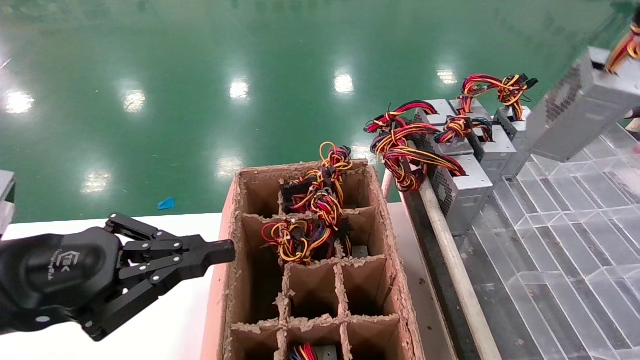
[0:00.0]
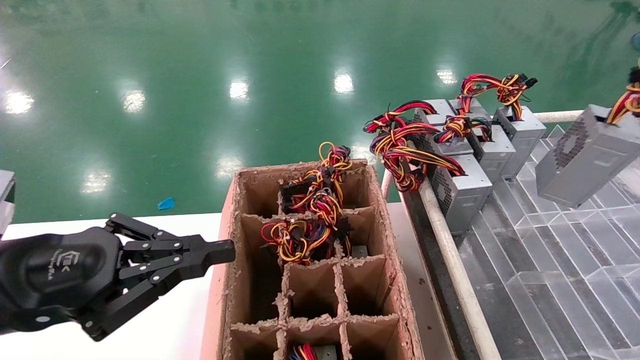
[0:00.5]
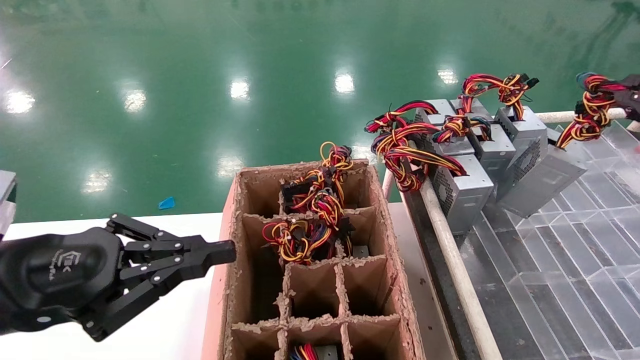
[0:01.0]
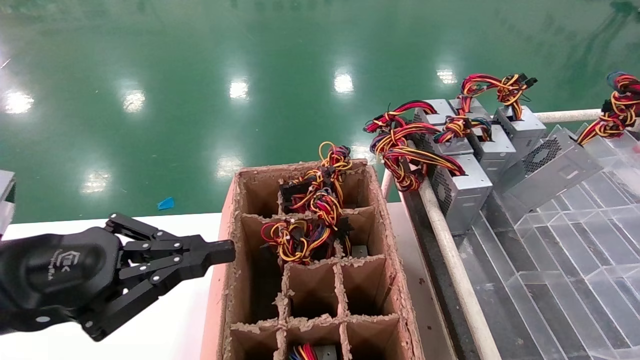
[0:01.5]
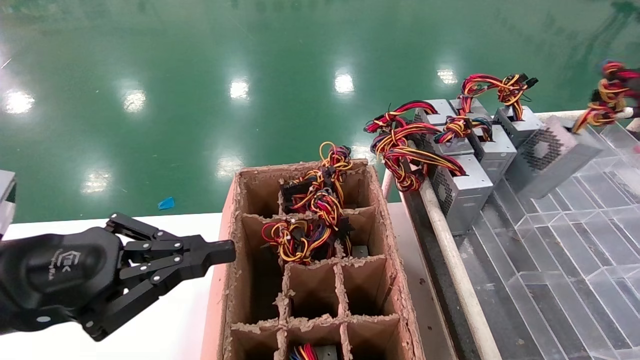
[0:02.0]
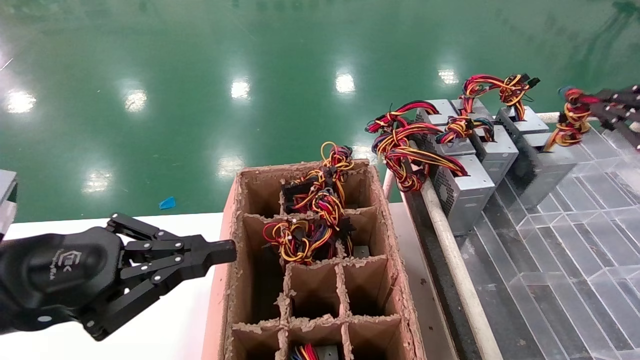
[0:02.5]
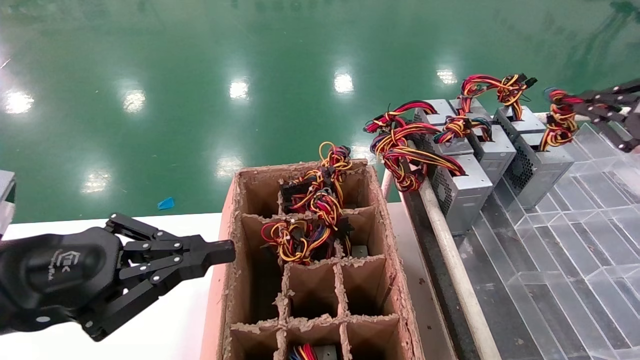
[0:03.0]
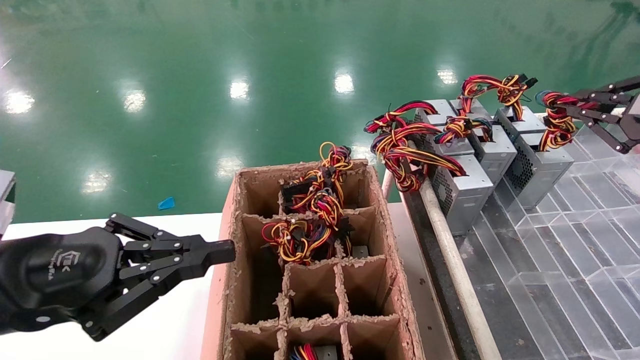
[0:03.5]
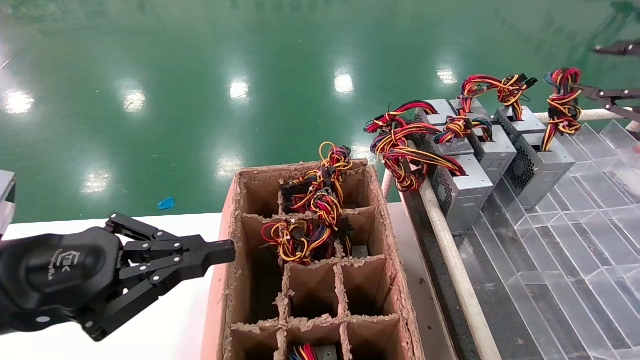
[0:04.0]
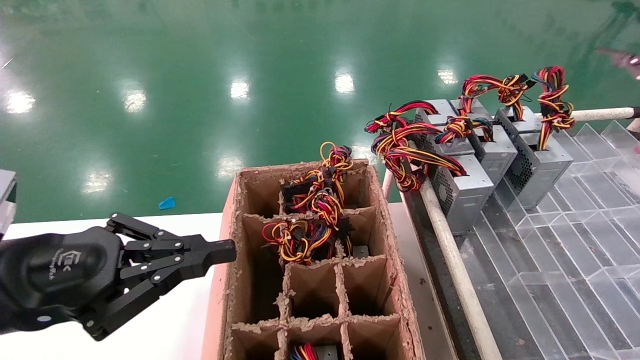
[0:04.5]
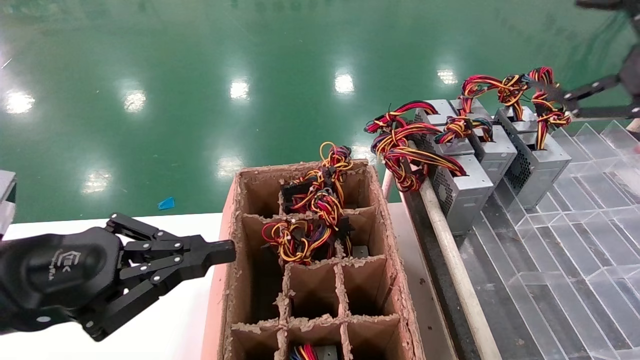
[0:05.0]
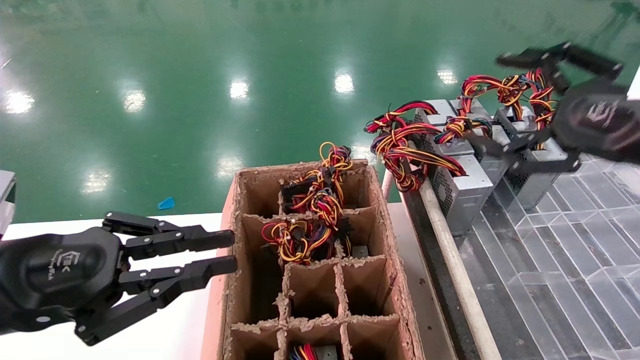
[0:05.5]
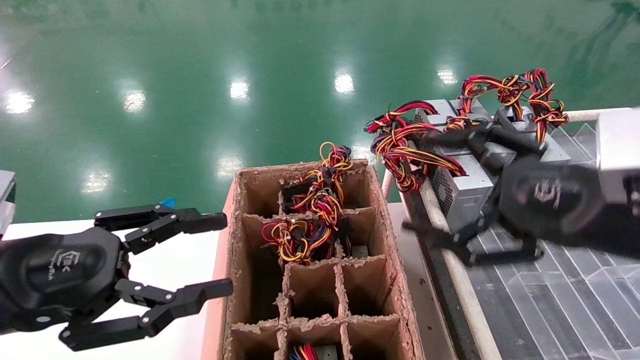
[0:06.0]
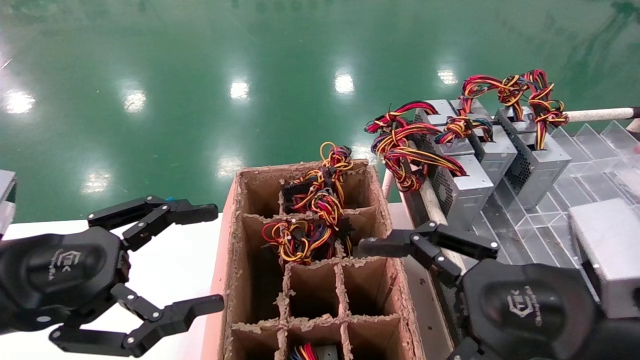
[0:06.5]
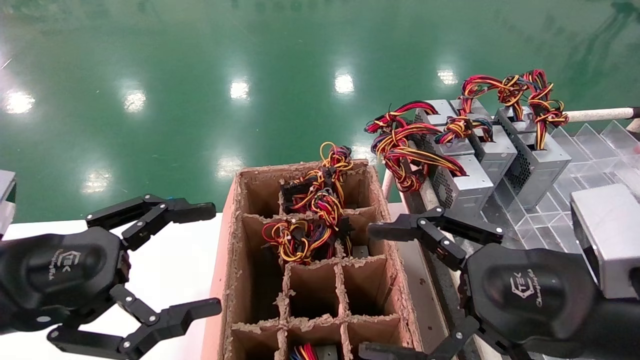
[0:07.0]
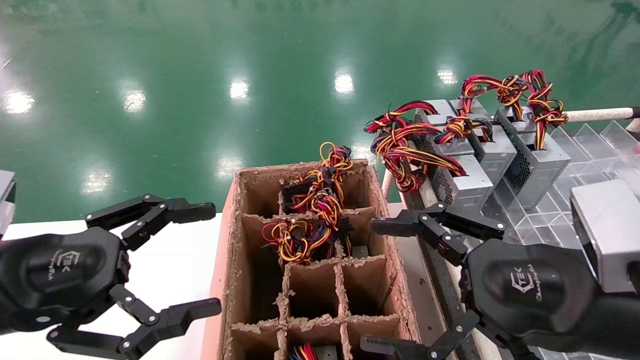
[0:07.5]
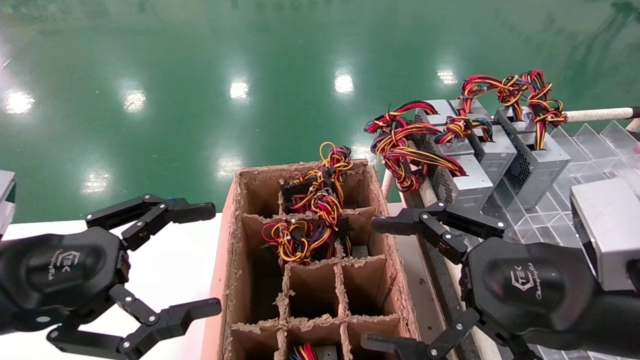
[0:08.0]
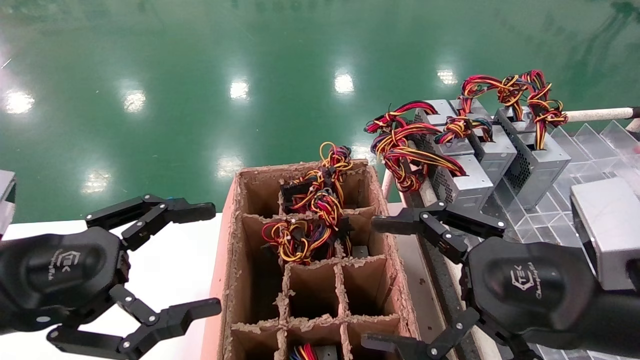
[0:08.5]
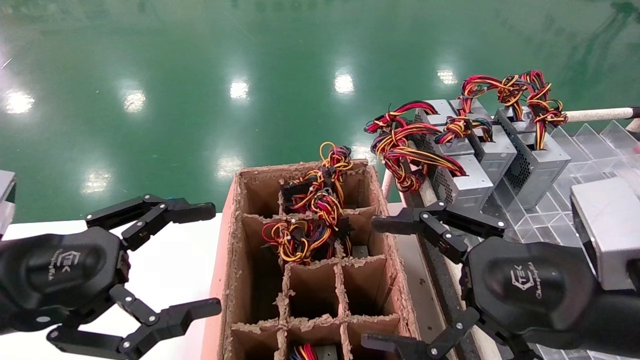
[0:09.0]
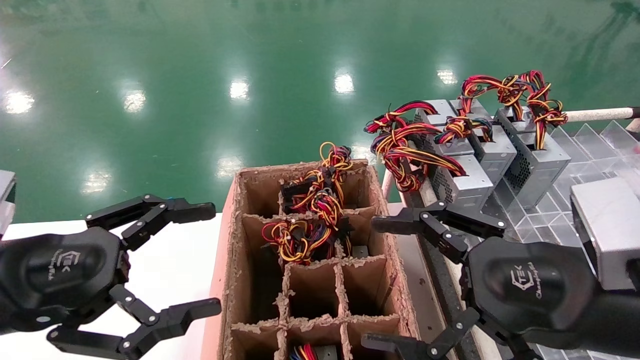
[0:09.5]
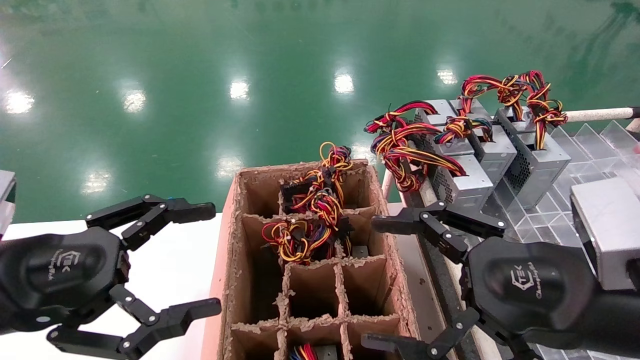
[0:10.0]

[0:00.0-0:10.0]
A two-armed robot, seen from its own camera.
Step, 0:00.0 to 0:04.0: Place the main unit power supply in the designated area.
0:00.0 to 0:02.0: The right gripper goes roughly 20 cm forward, to the right and downward.
0:02.0 to 0:04.0: The grippers stay close to where they were, moving slightly.
0:04.0 to 0:06.0: The left gripper opens, while the right gripper goes approximately 20 cm to the left and downward, and opens its fingers.
0:06.0 to 0:08.0: The right gripper moves some 5 cm. The left gripper opens up.
0:08.0 to 0:10.0: Both grippers stay about where they are.

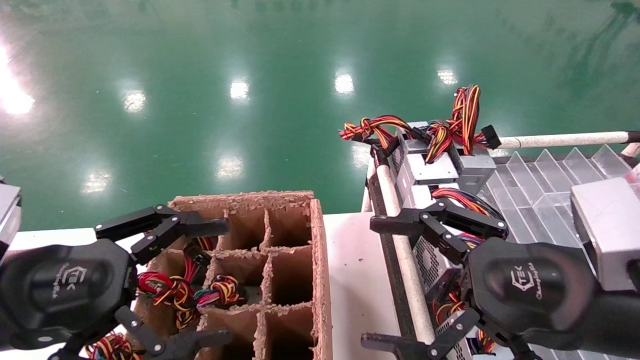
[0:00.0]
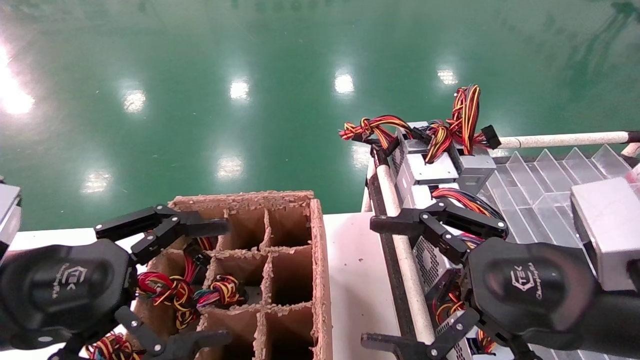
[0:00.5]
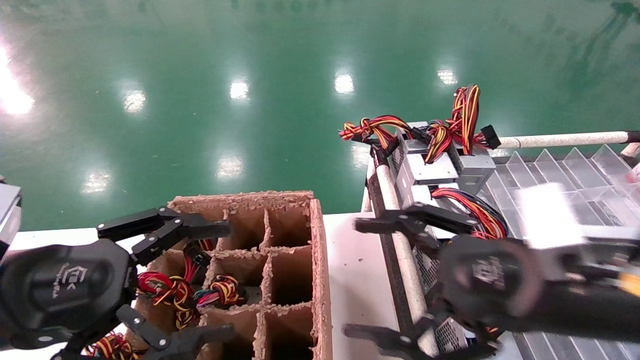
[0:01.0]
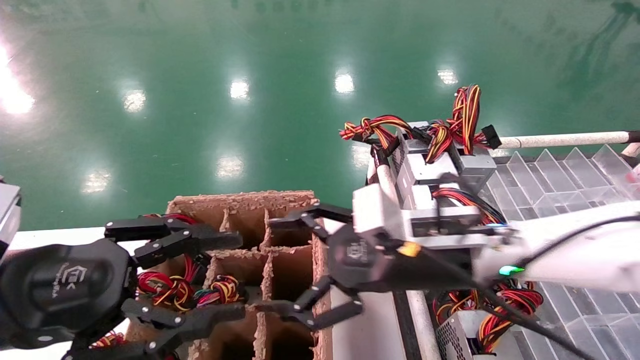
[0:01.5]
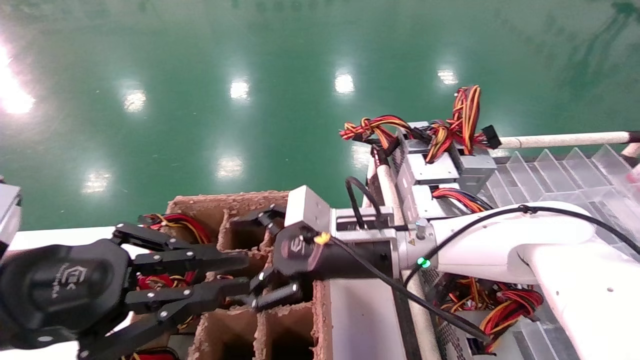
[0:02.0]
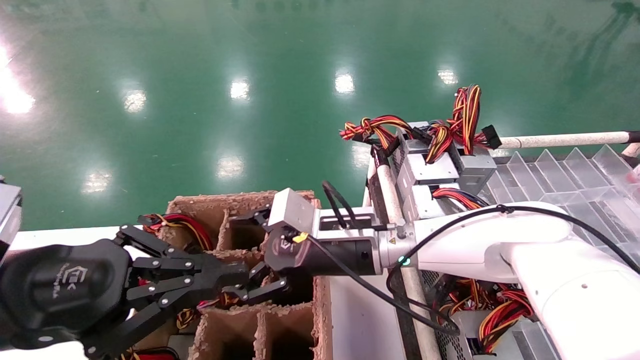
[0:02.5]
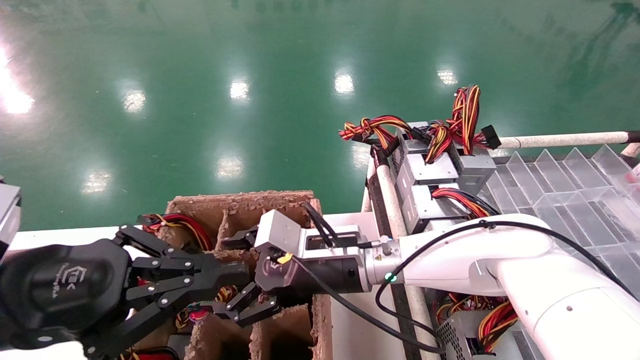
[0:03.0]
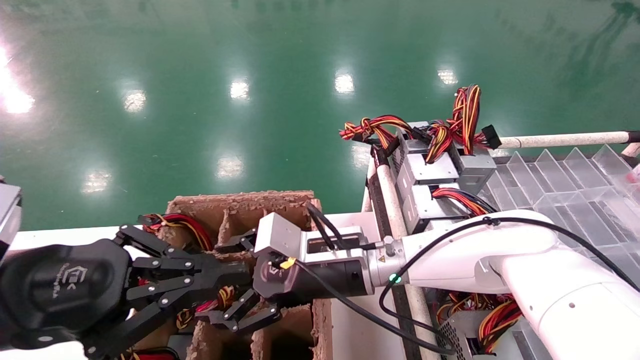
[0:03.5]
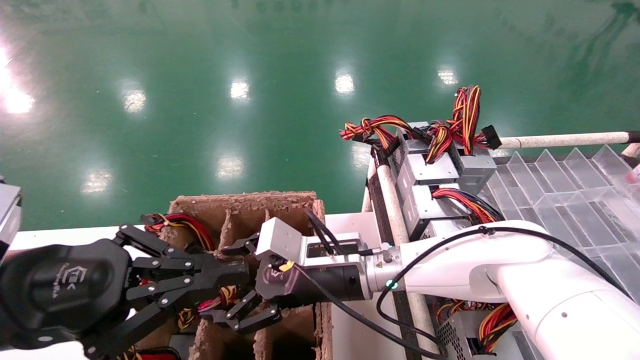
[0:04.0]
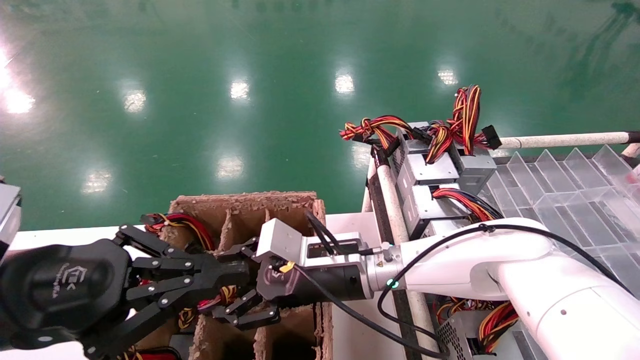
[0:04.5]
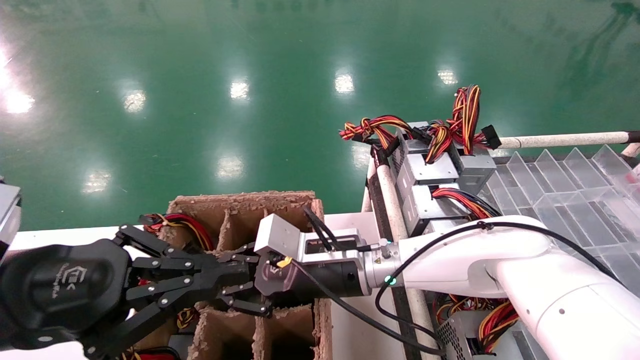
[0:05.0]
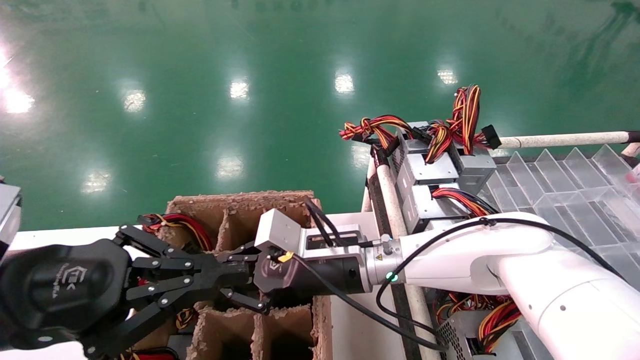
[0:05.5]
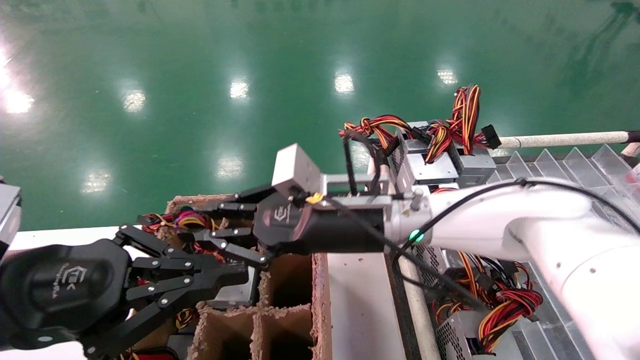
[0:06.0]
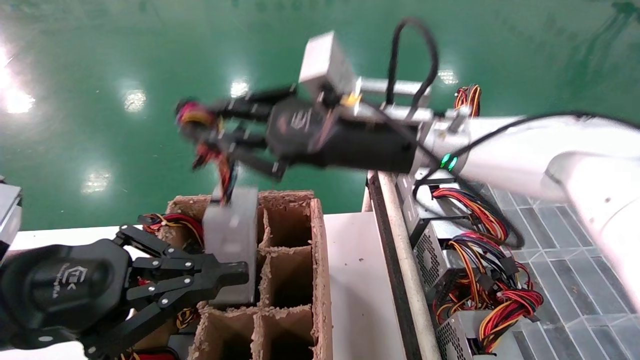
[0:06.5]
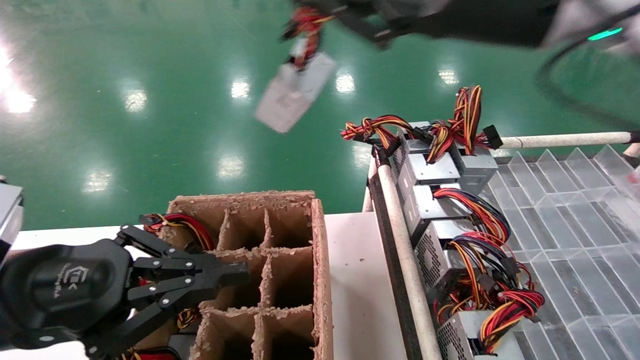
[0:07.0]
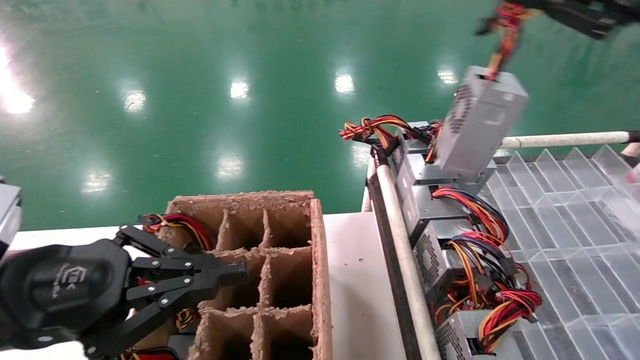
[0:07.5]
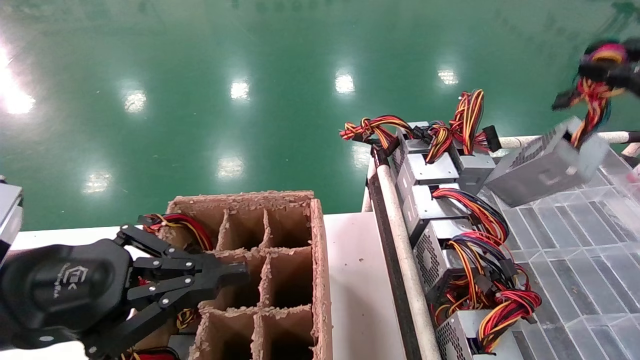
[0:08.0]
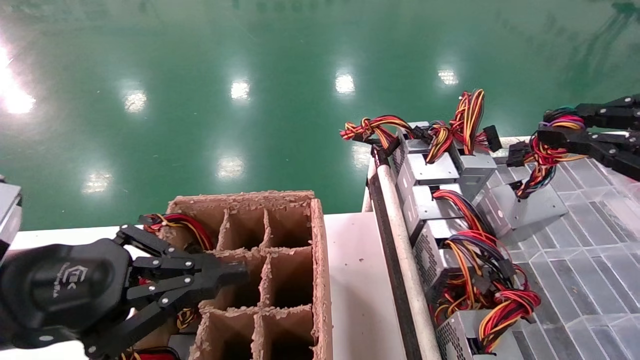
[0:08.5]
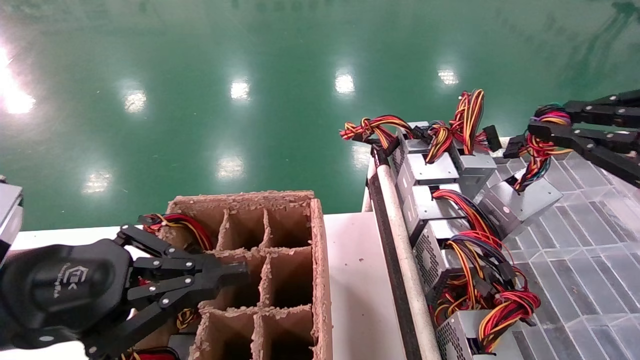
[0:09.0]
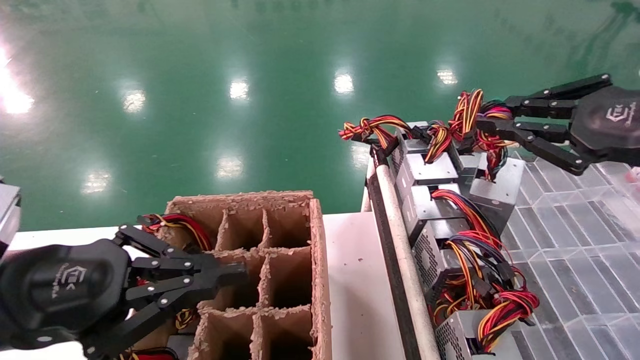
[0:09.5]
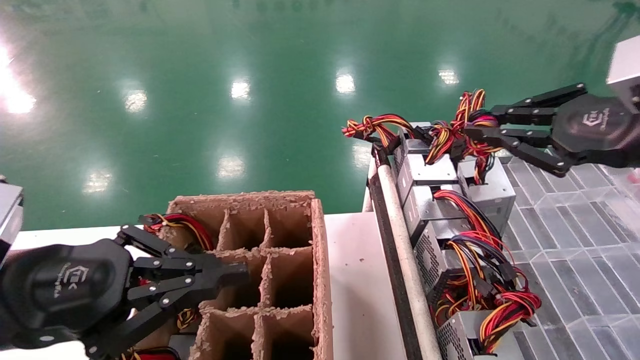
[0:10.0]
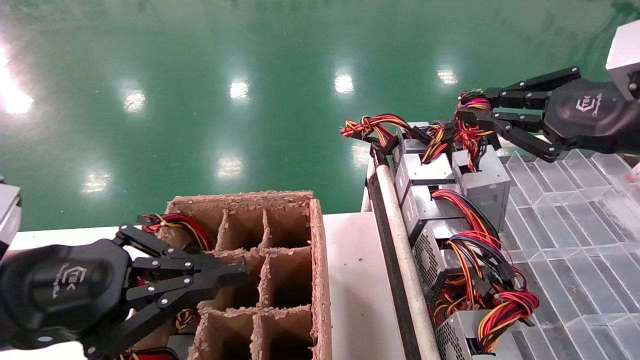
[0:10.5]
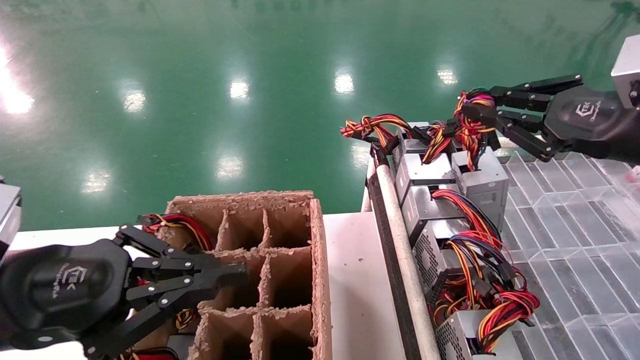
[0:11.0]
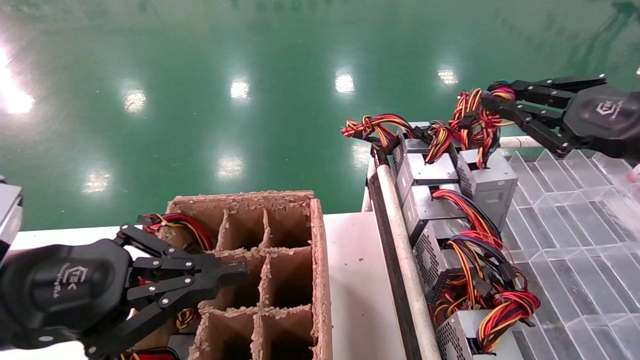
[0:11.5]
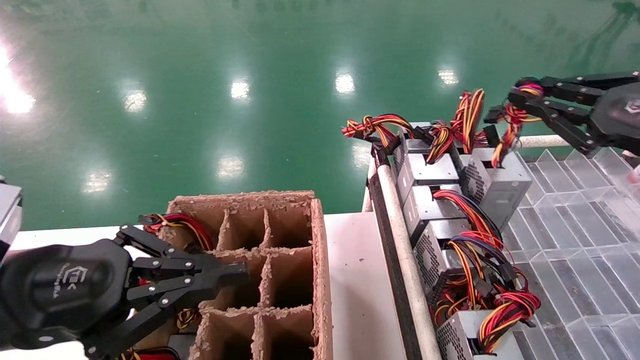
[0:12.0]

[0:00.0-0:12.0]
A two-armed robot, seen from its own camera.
Step, 0:01.5 to 0:05.0: Grab the main unit power supply from the containment box.
0:00.0 to 0:02.0: The left gripper closes; the right gripper is displaced forward and to the left by about 25 cm.
0:02.0 to 0:04.0: The right gripper changes place by some 5 cm.
0:04.0 to 0:06.0: The right gripper heads upward, covering some 10 cm, and closes its fingers.
0:06.0 to 0:08.0: The right gripper travels to the right by approximately 40 cm.
0:08.0 to 0:10.0: The right gripper heads to the left, covering some 10 cm.
0:10.0 to 0:12.0: The right gripper goes approximately 5 cm to the right.
